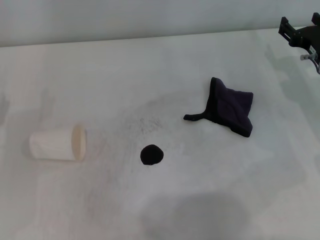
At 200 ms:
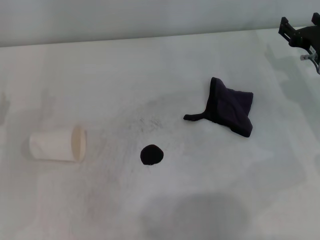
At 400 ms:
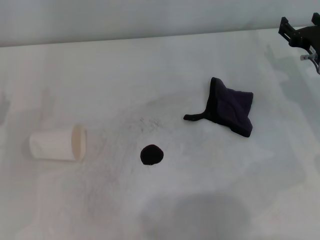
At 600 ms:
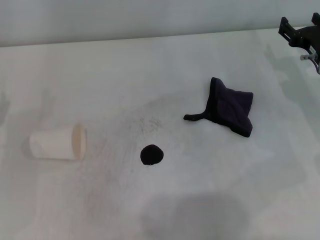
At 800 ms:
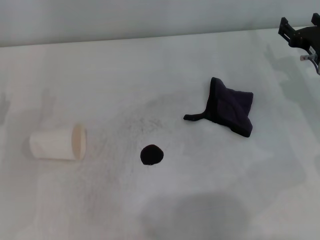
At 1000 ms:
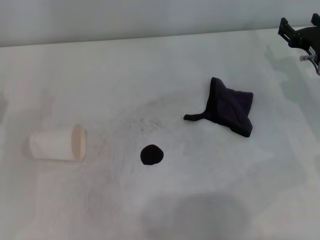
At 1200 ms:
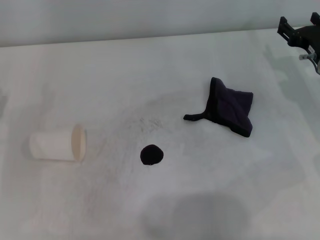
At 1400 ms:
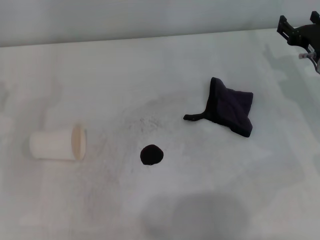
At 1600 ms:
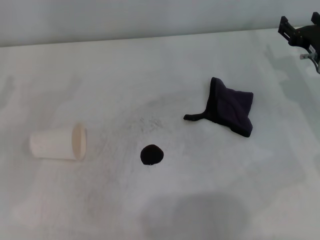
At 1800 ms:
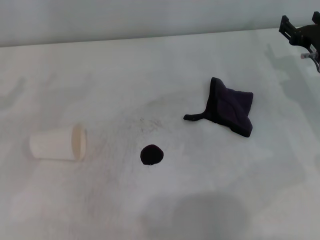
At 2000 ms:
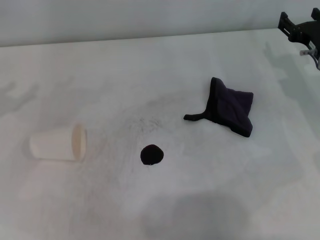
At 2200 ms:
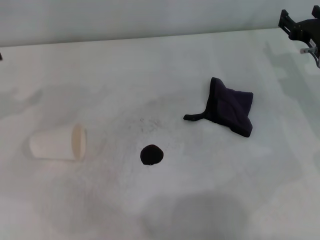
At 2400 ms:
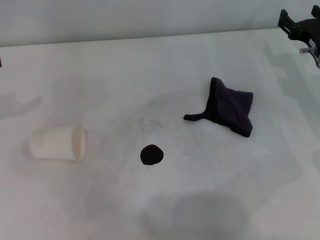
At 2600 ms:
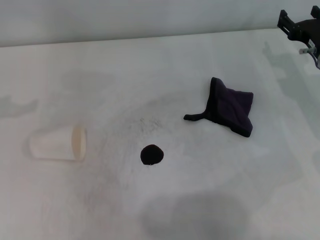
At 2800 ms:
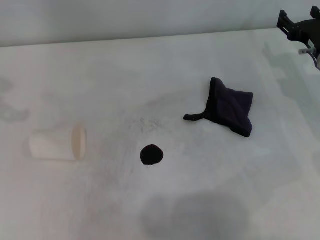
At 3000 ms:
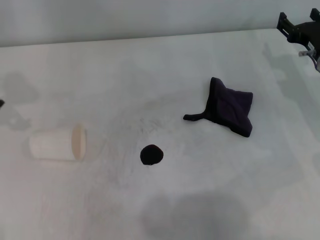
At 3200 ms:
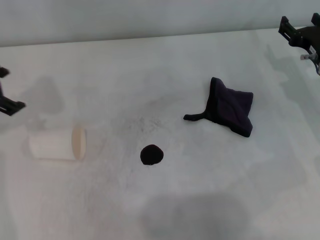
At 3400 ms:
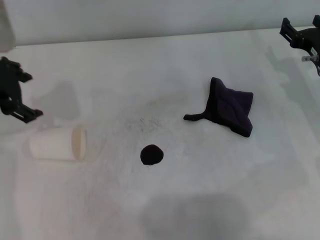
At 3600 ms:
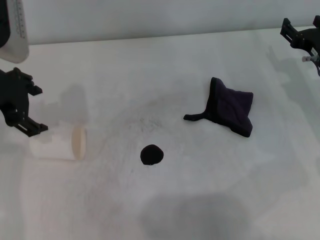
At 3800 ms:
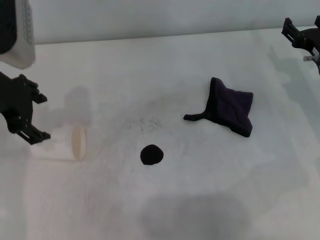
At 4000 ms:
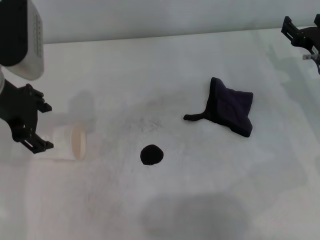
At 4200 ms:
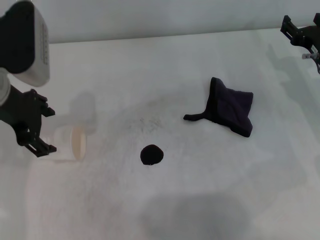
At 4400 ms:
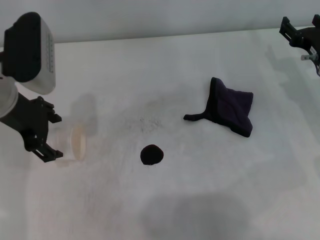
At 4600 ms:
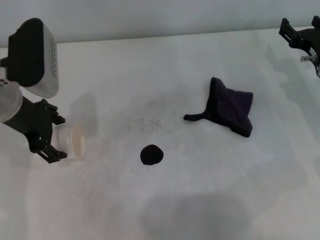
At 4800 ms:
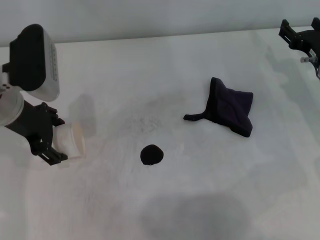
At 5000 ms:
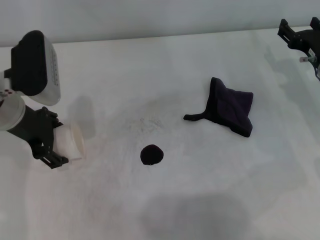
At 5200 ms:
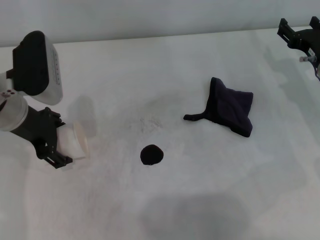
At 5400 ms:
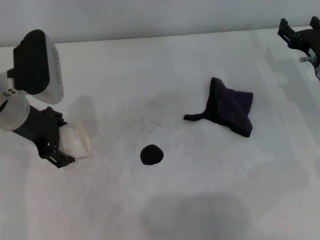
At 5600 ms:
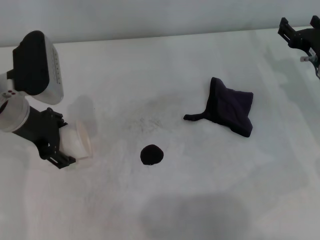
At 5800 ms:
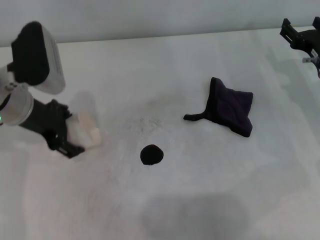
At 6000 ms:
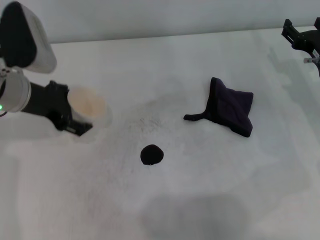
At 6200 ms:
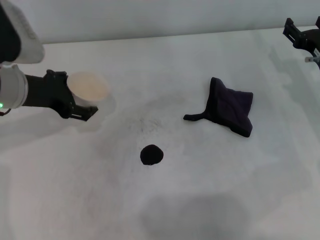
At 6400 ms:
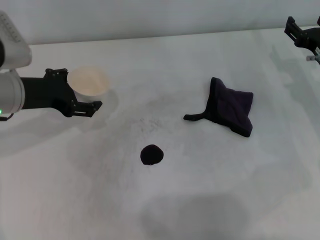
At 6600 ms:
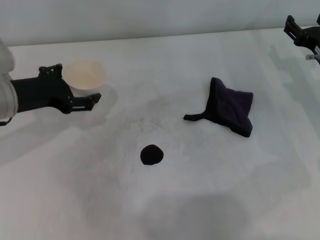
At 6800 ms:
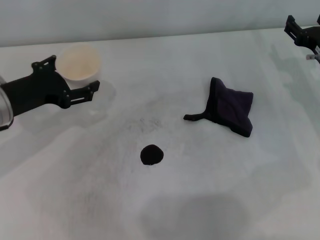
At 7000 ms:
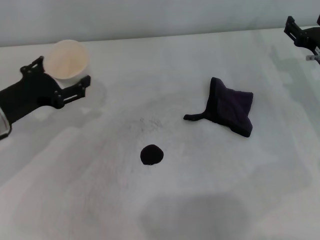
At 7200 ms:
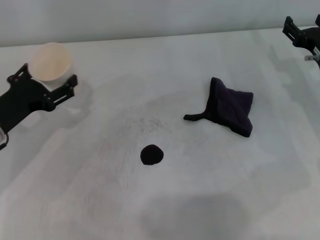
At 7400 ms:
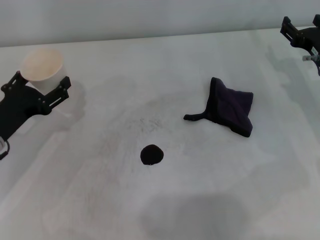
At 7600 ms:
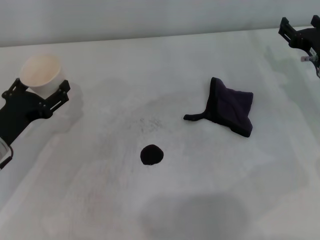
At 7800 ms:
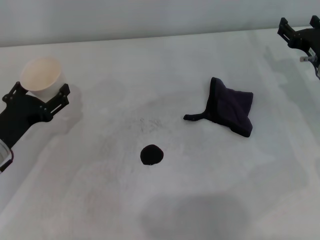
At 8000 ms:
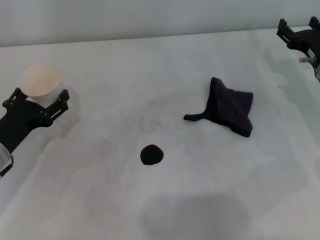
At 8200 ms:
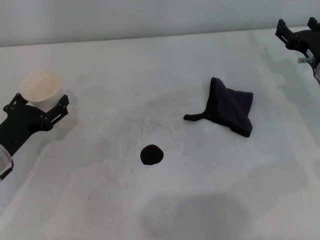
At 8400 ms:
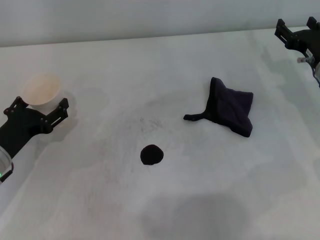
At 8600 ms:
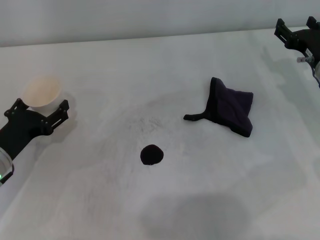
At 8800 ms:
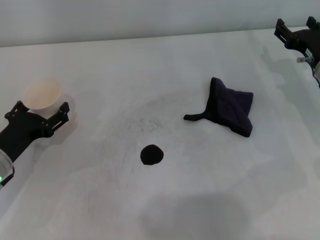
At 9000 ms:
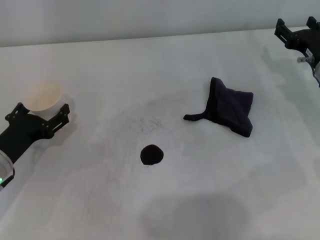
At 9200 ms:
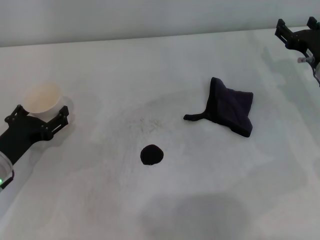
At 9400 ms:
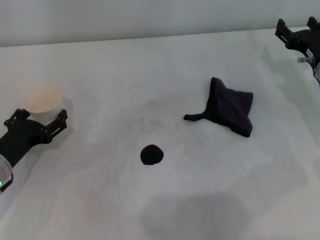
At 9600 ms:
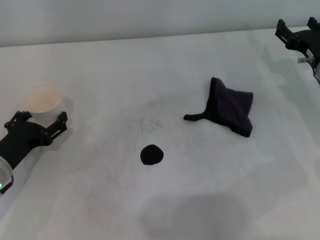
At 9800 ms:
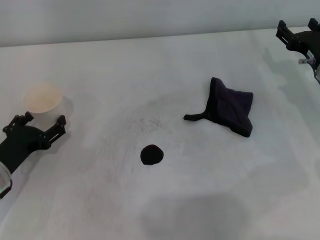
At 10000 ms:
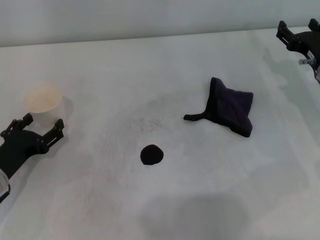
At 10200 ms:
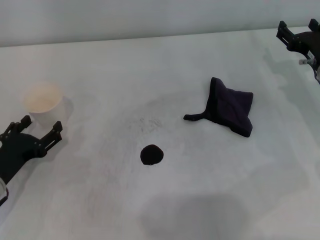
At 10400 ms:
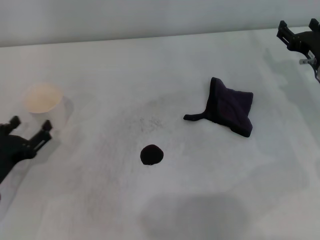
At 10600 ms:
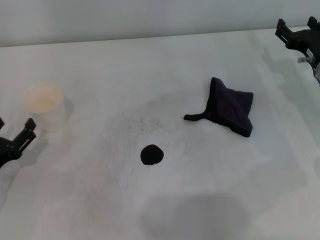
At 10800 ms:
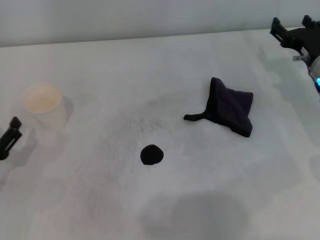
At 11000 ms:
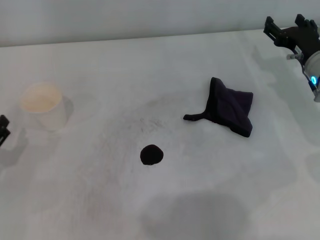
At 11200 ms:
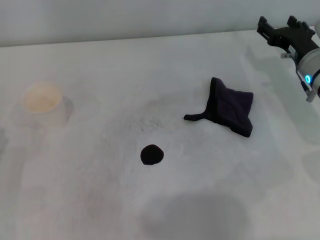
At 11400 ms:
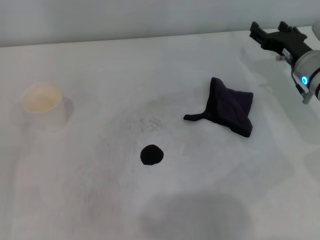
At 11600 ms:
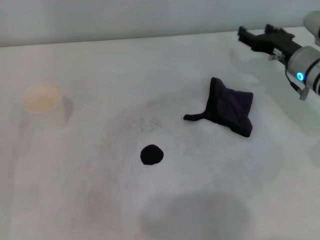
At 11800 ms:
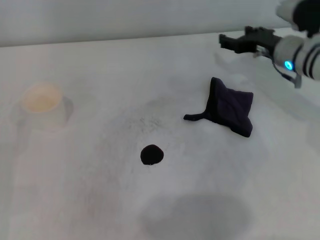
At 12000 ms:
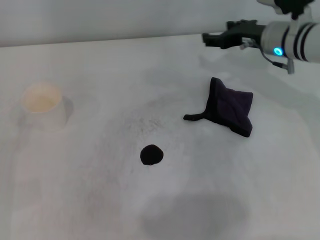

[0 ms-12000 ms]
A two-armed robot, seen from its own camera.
Step, 0 ms to 5400 ms: Grasp the paper cup with the left gripper.
Step, 5800 ms to 9600 ms: Stand the paper cup upright with the left gripper.
3000 ms to 4400 ms: The left gripper is displaced to the right by some 10 cm.
6000 ms to 7600 ms: The left gripper shifts roughly 15 cm downward, backward and to the left.
7600 ms to 9000 ms: The grippers make only small movements.
9000 ms to 10400 ms: The grippers move only a little.
10400 ms to 12000 ms: The right gripper goes roughly 10 cm to the left, forward and upward. The left gripper shifts about 5 cm to the left.

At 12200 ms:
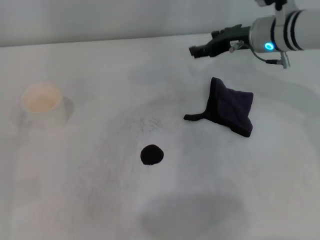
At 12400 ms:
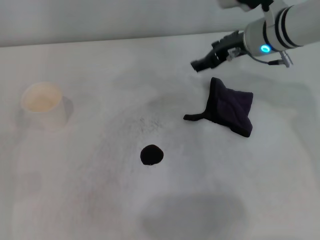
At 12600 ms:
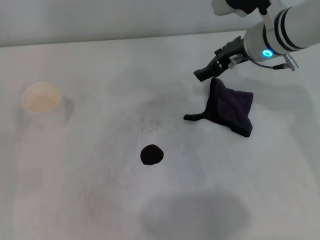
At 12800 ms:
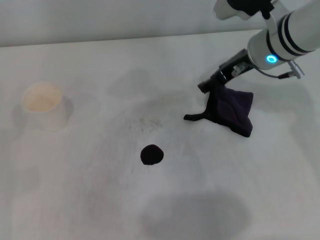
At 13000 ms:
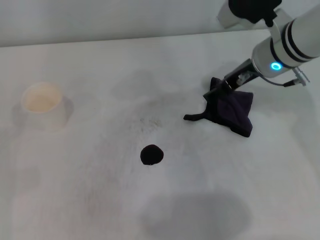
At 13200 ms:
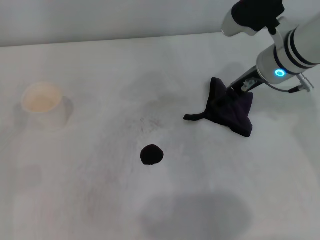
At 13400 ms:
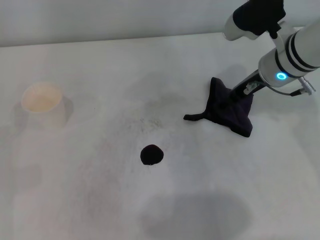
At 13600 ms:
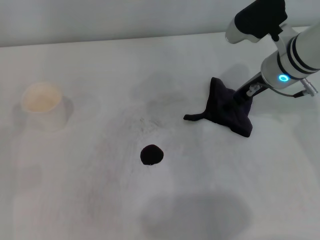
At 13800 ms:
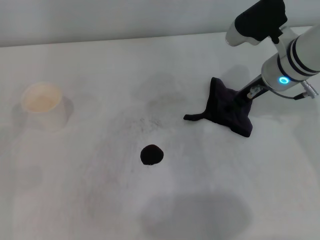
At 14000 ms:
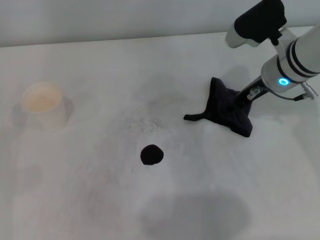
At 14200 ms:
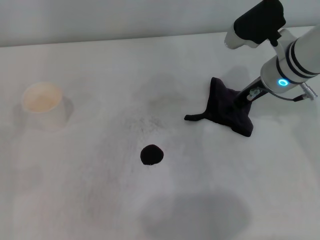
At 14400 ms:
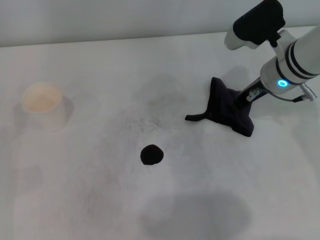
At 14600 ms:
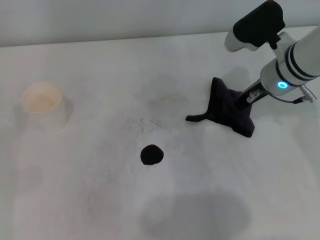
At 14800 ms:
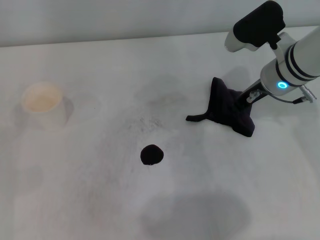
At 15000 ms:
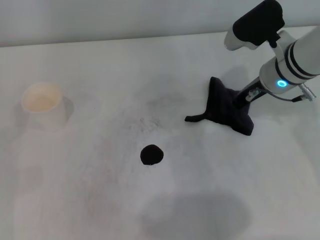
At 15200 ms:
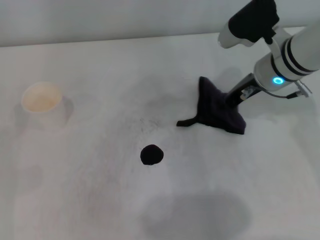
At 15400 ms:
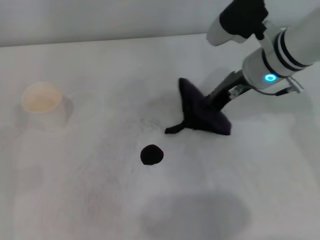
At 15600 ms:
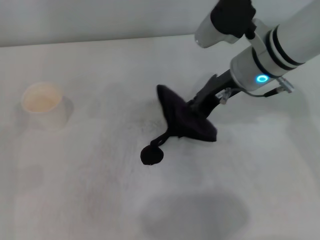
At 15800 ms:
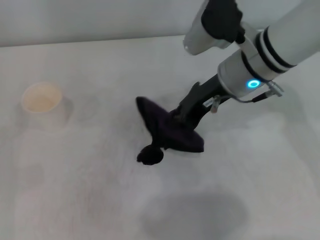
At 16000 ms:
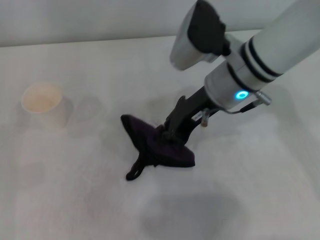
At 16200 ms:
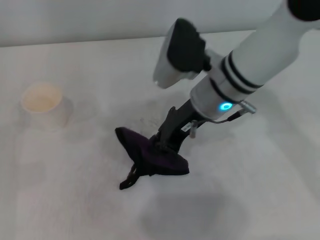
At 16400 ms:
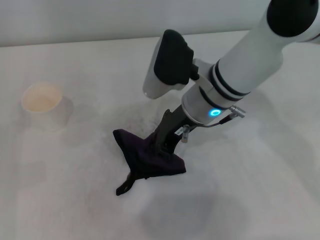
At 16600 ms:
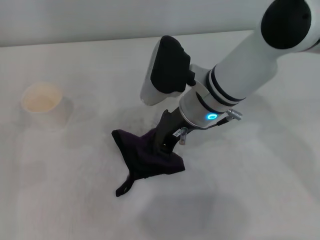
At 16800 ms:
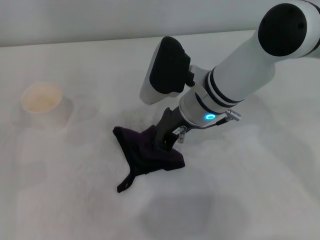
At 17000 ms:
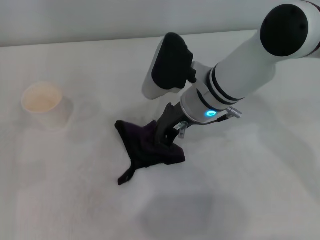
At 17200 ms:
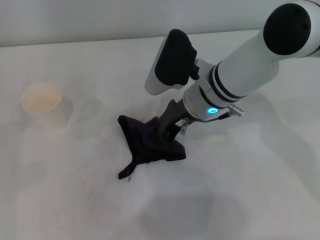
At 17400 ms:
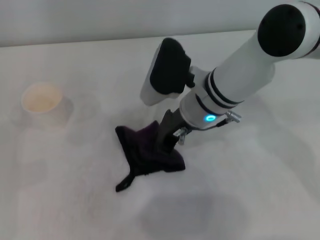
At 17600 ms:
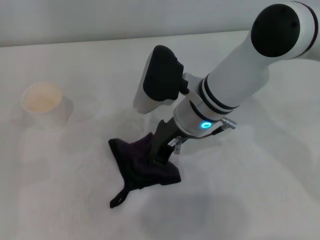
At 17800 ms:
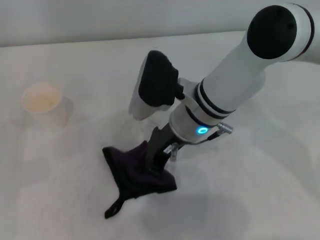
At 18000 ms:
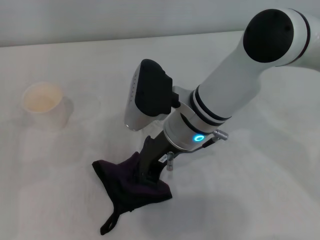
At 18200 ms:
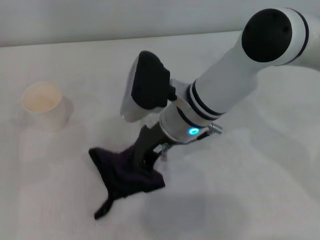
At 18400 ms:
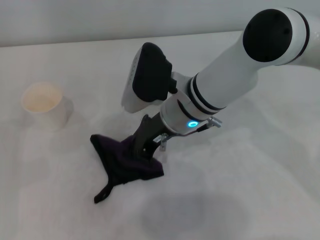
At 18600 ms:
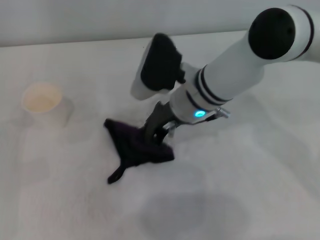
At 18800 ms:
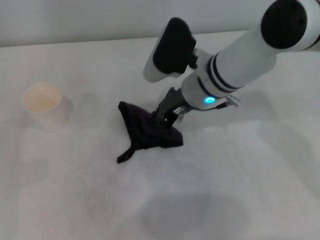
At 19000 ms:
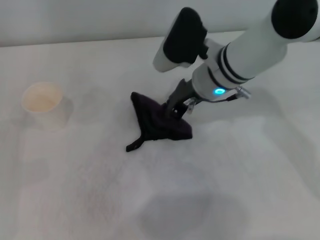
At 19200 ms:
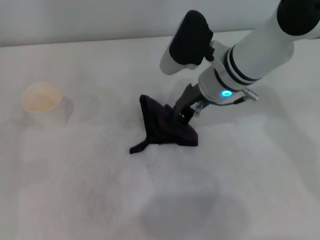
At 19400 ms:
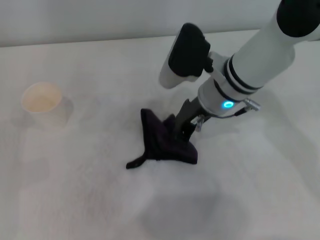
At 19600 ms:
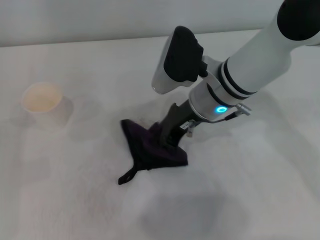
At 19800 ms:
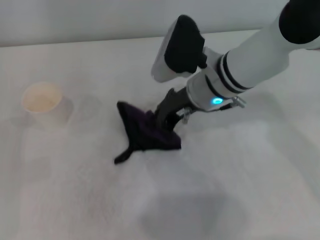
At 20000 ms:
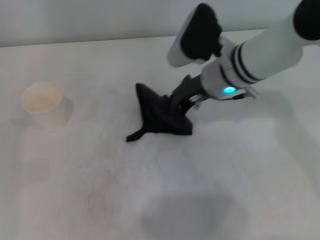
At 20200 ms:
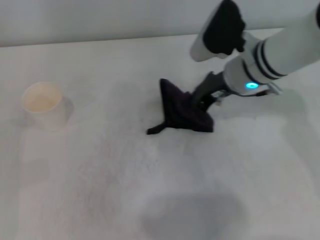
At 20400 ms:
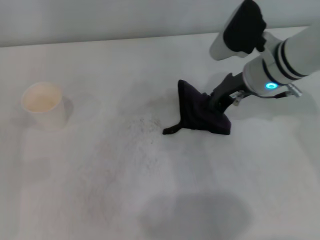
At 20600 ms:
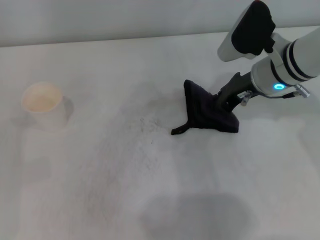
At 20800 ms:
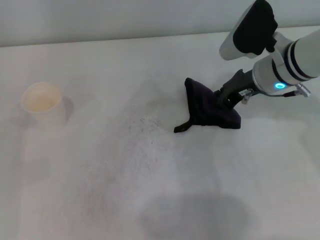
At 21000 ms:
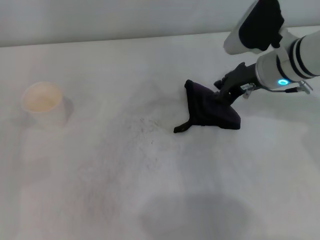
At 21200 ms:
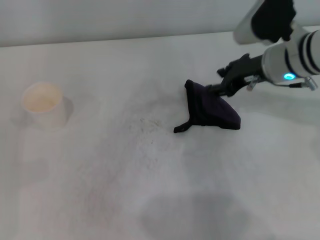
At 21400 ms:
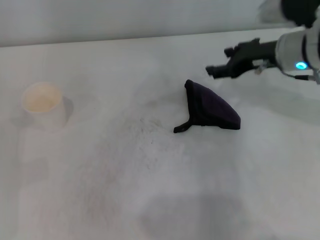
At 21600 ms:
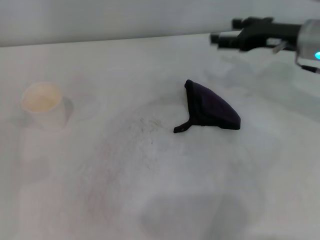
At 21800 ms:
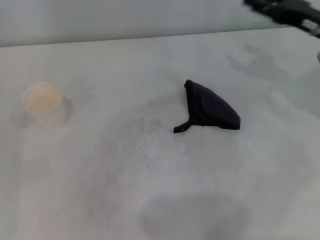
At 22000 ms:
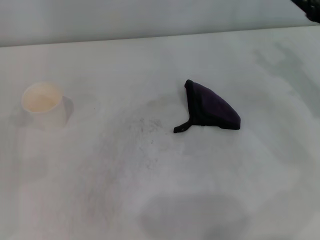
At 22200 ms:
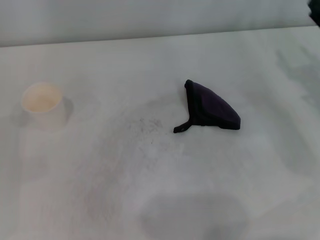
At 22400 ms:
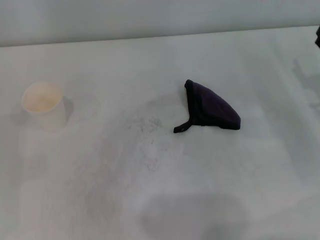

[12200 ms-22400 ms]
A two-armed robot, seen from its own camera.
Step, 12200 ms to 14600 ms: Grasp the rag with the right gripper.
Step, 14800 ms to 20000 ms: Wipe the stains off the table with the right gripper.
Step, 20400 ms to 20800 ms: Place the rag on the table with the right gripper.
13600 ms to 15200 ms: The right gripper closes its fingers.
15200 ms to 16600 ms: The right gripper shifts roughly 10 cm to the left.
16600 ms to 18000 ms: The grippers move only a little.
18000 ms to 19400 ms: The right gripper moves to the right, some 5 cm.
19400 ms to 21000 ms: The right gripper moves to the right, about 10 cm.
21000 ms to 22400 ms: The right gripper heads to the right, backward and downward, covering some 20 cm, and opens its fingers.
